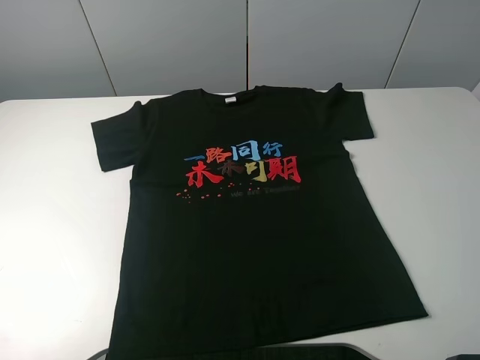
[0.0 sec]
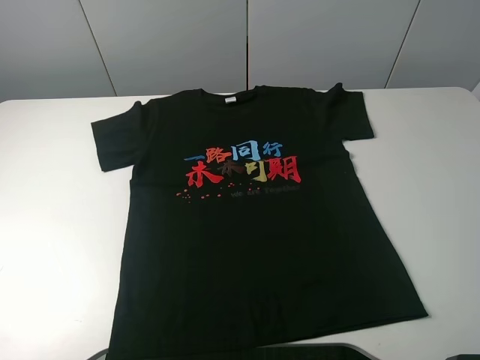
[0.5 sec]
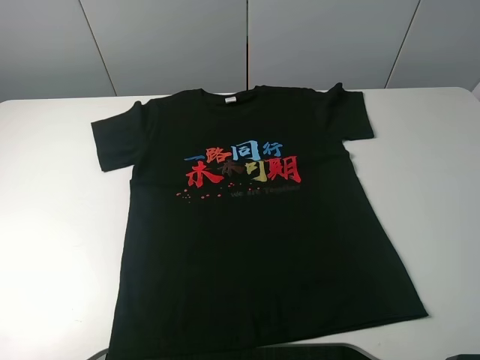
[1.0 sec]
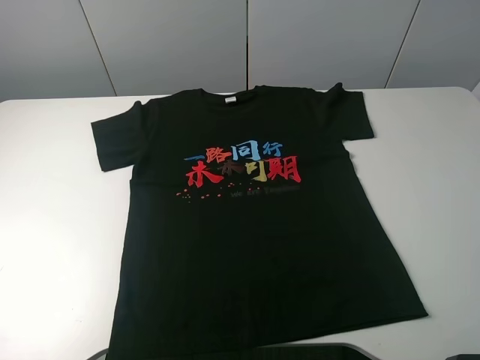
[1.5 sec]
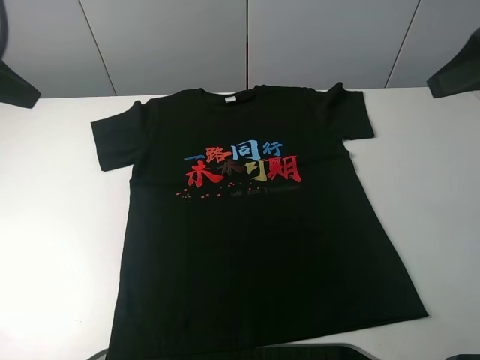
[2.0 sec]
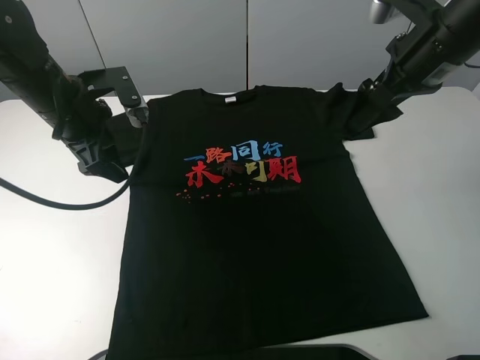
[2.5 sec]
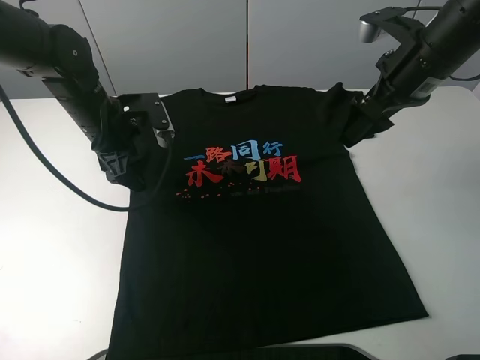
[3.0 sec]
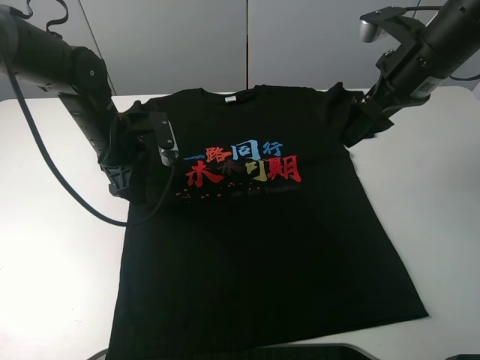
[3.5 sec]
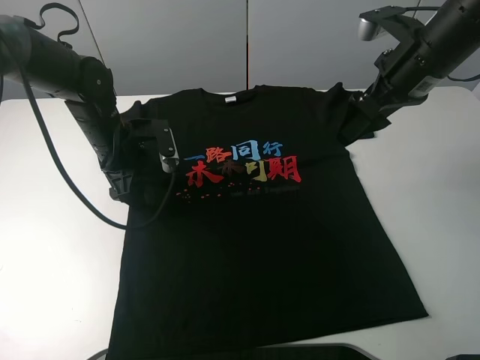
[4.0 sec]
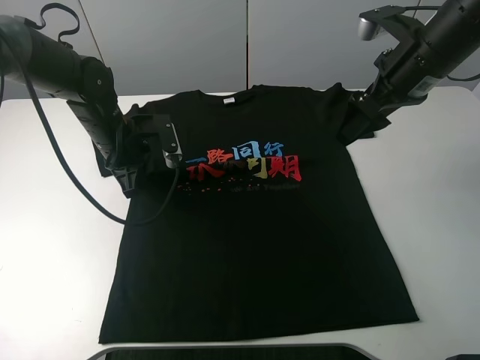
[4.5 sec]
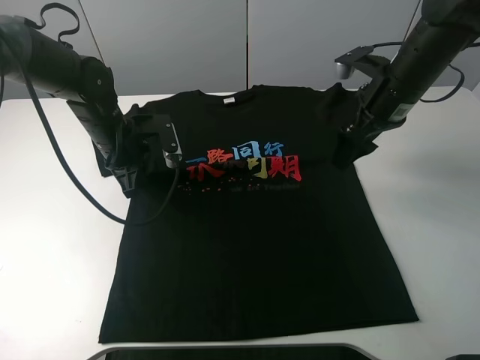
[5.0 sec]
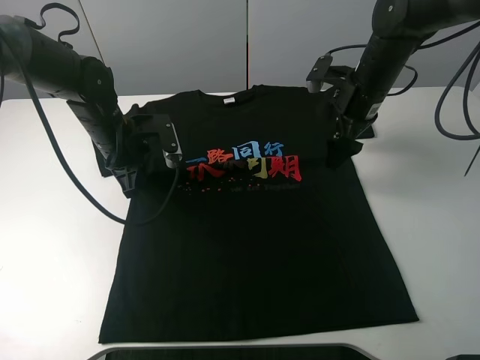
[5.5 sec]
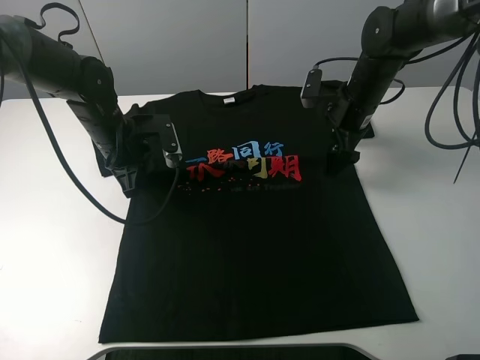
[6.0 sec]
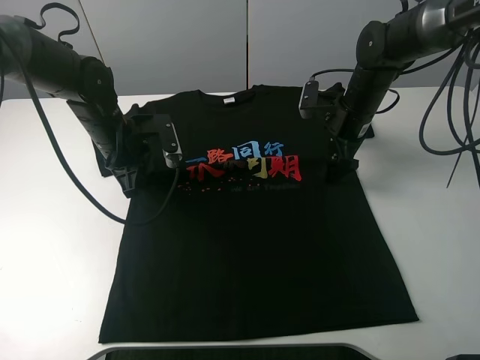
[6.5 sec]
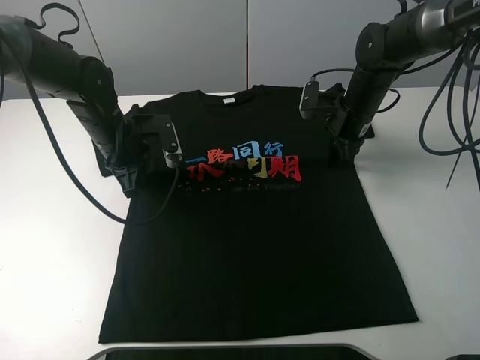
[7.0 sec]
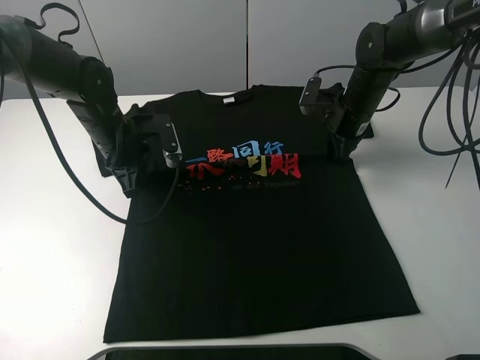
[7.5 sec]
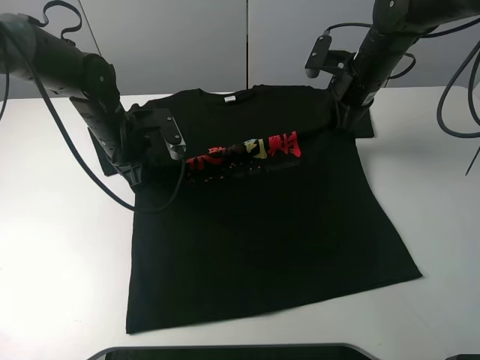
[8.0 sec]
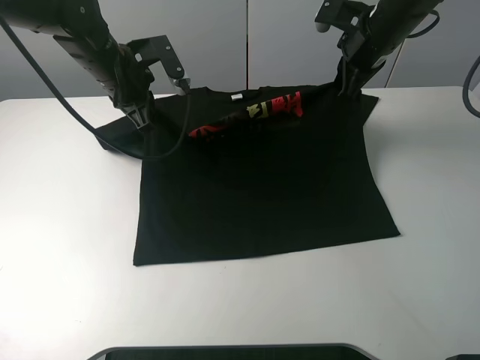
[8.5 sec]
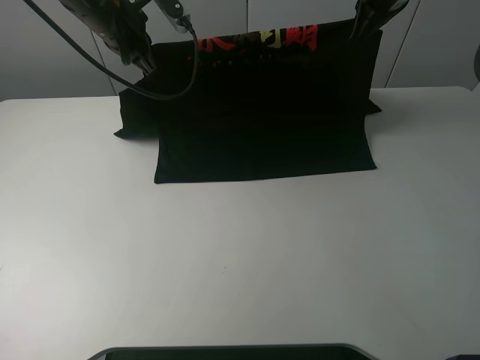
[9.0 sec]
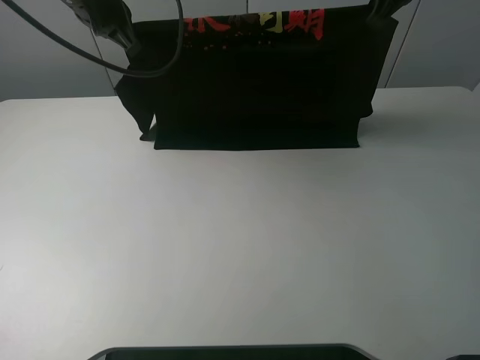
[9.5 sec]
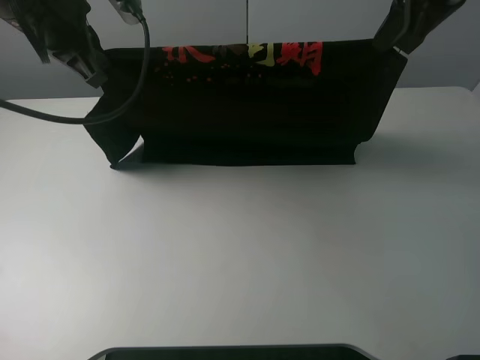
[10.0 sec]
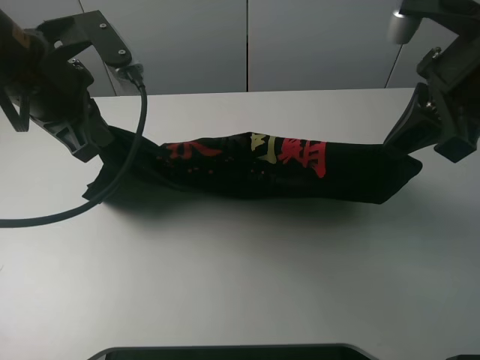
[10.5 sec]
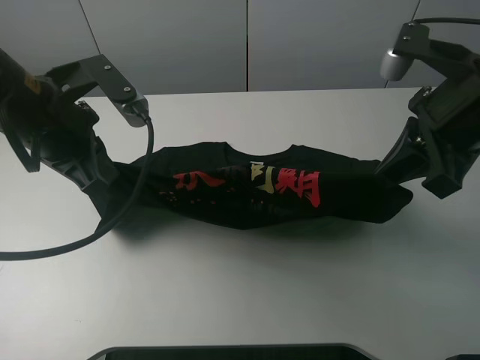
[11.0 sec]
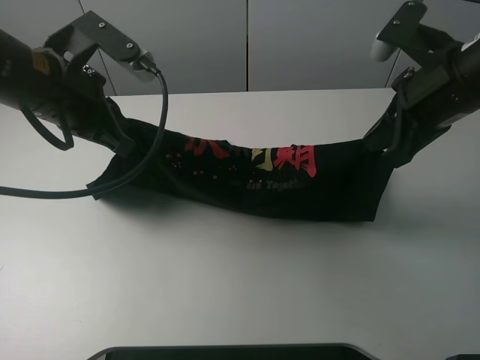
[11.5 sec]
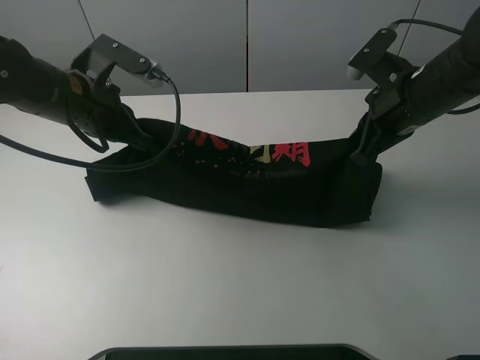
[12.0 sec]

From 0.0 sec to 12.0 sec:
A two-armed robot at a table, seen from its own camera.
Task of the whole recording: fold the clothes on the table.
Step, from 0.0 sec to 7.0 sec: Lift the black T-shirt with the left gripper.
From 0.0 sec to 2.0 sec: Both grippers move forward, roughly 25 cm.
From 2.0 sec to 4.0 sec: The right gripper is displaced downward, forward and to the left by about 15 cm. Meanwhile the left gripper moves downward and to the right, some 25 cm.
From 4.0 sec to 6.0 sec: The left gripper closes up. Meanwhile the right gripper moves downward and forward, approximately 15 cm.
From 6.0 sec to 8.0 sec: The right gripper changes place by approximately 5 cm, and closes up.
From 8.0 sec to 10.0 sec: The left gripper moves upward, some 20 cm. The right gripper shifts approximately 20 cm upward and backward.
From 10.0 sec to 12.0 sec: The two grippers go about 10 cm downward.

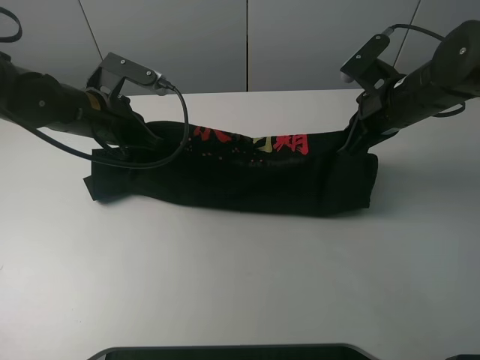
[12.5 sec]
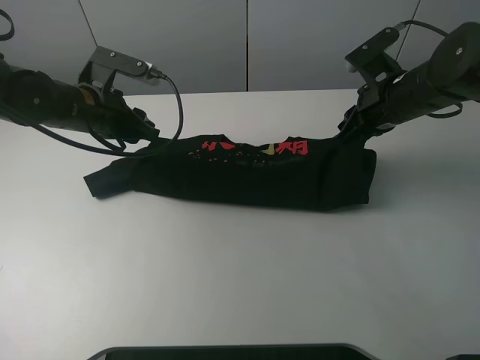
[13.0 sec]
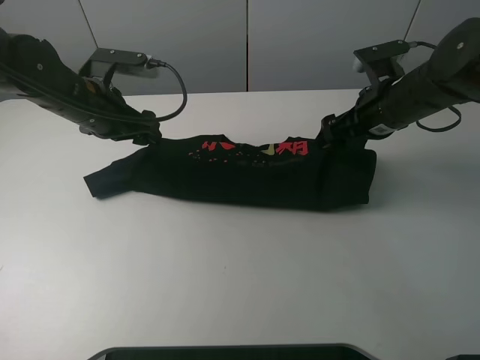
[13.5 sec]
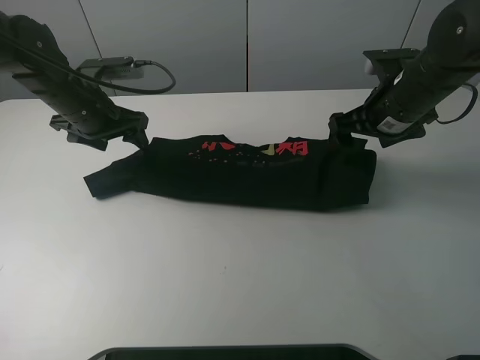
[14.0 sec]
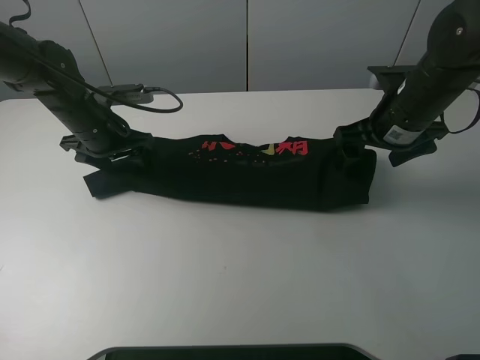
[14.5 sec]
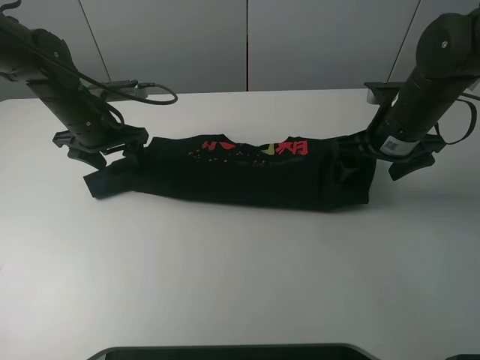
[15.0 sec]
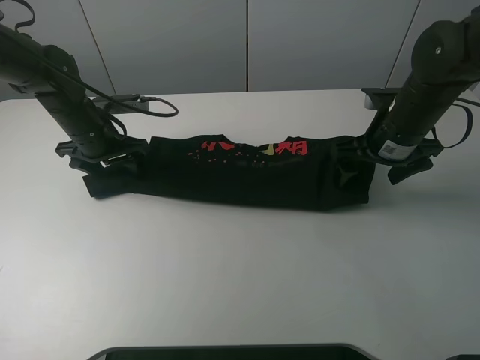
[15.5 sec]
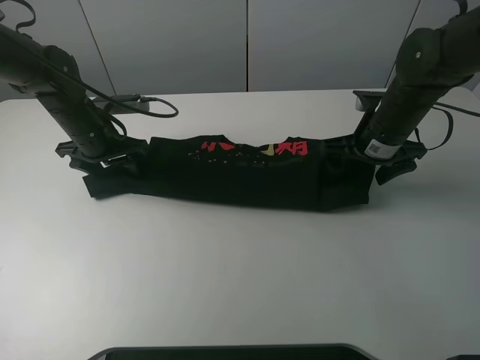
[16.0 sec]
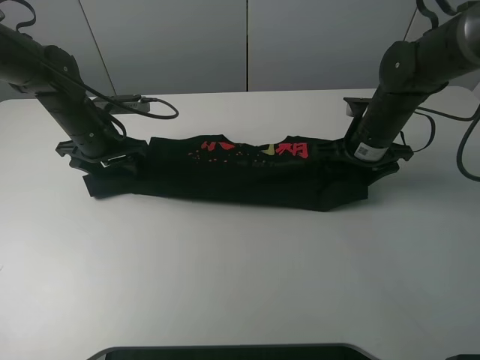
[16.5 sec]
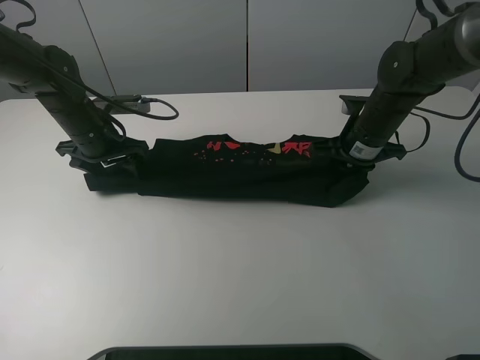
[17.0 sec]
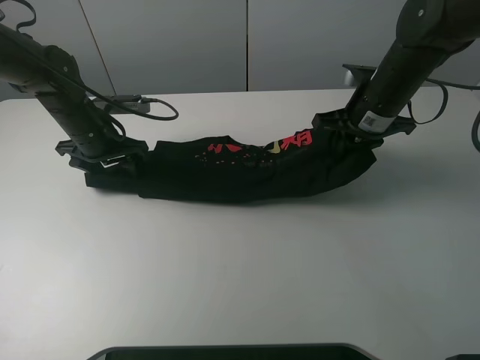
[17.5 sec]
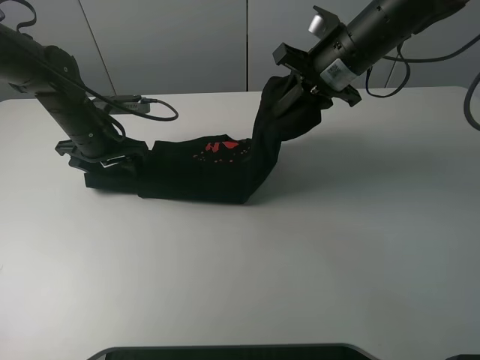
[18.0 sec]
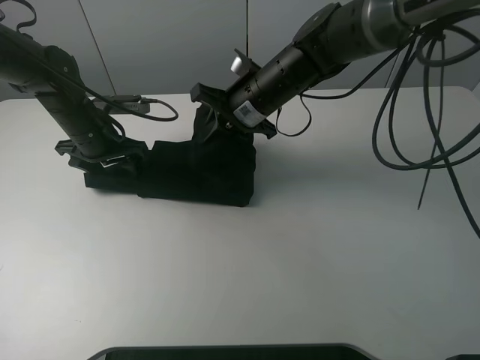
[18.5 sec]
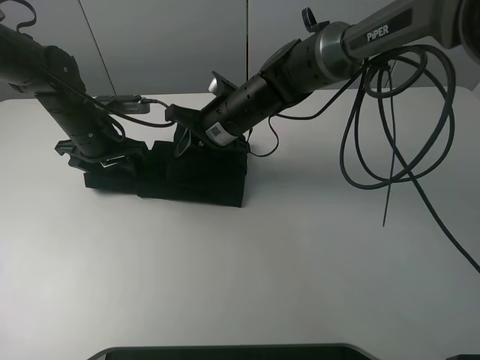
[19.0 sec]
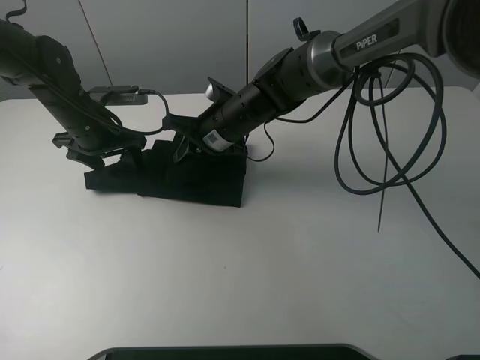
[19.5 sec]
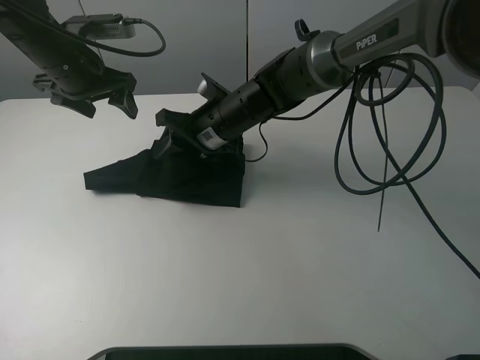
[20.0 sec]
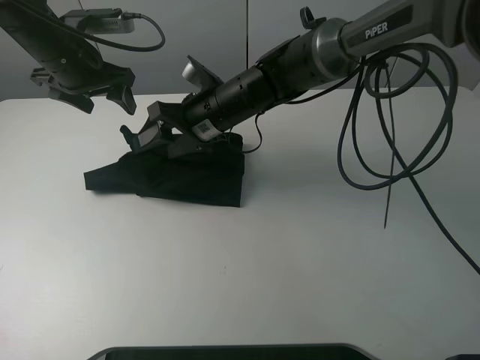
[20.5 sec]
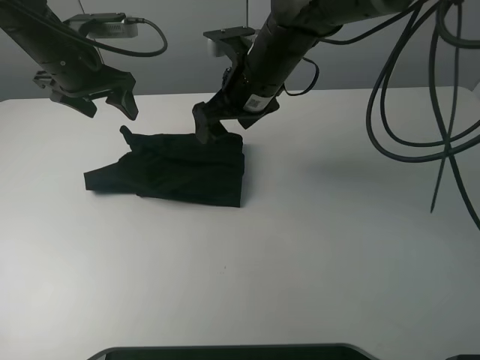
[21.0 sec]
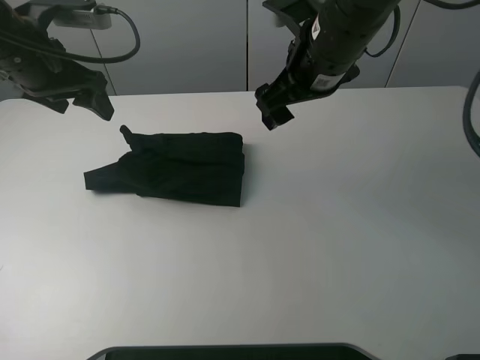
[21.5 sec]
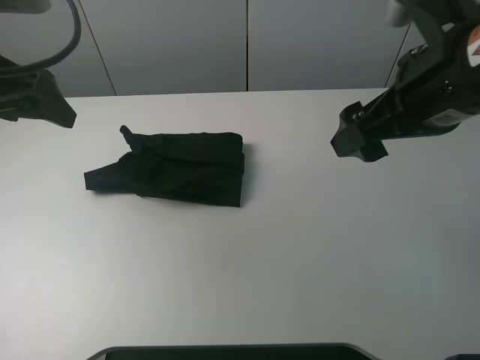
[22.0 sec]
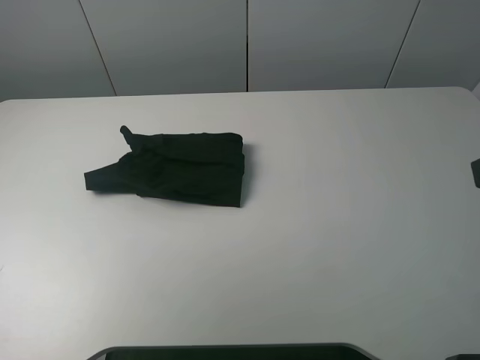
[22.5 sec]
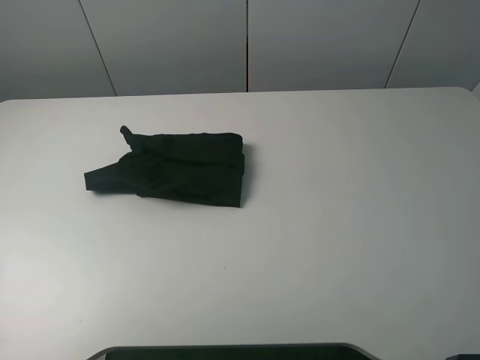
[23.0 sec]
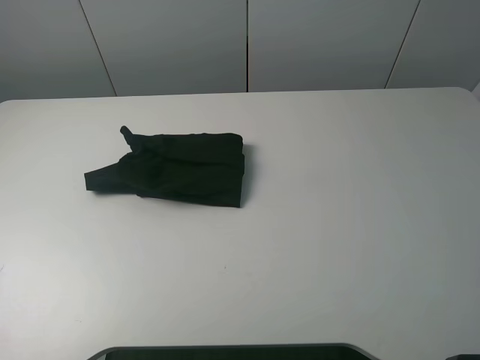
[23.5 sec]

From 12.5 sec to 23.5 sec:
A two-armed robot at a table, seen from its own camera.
Task of the whole recording: fold the clothes on the table.
Step, from 13.5 sec to 16.5 sec: Grasp the black T-shirt with the right gripper.
Step, from 17.0 sec to 20.0 sec: Fold the black T-shirt from right to left with right gripper.
From 12.5 sec to 14.5 sec: The right gripper opens up, while the left gripper changes place by about 5 cm, and opens its fingers.
From 14.5 sec to 16.0 sec: The right gripper ends up roughly 5 cm from where it was.
From 16.0 sec to 18.0 sec: The right gripper travels upward and to the left by about 10 cm, and closes.
From 18.0 sec to 20.0 sec: The left gripper heads upward, covering approximately 10 cm. Meanwhile the right gripper travels to the left and downward by some 20 cm, and opens its fingers.
From 20.0 sec to 21.5 sec: The right gripper moves upward and to the right, some 20 cm. The left gripper travels backward by approximately 5 cm.
From 21.5 sec to 23.5 sec: The left gripper shifts about 30 cm backward, while the right gripper goes about 35 cm backward and to the right.

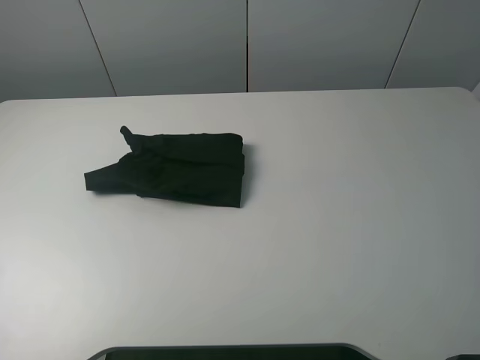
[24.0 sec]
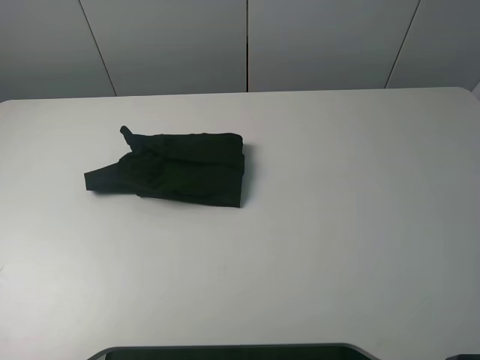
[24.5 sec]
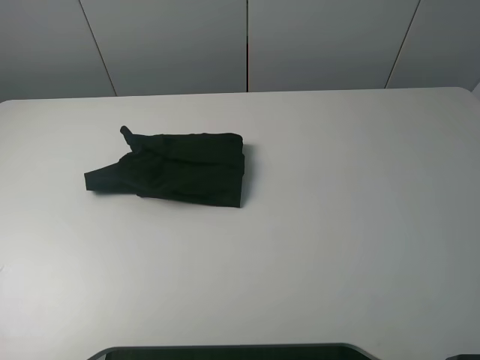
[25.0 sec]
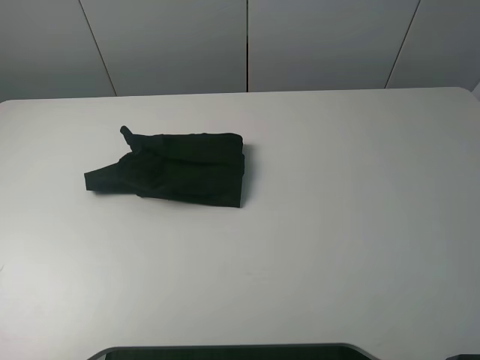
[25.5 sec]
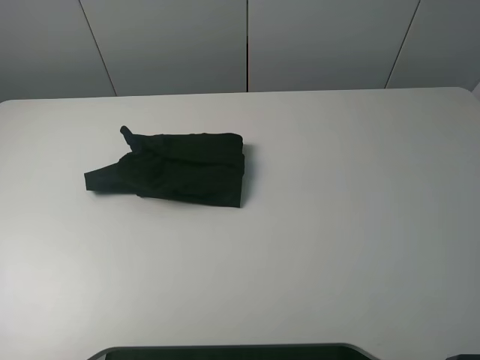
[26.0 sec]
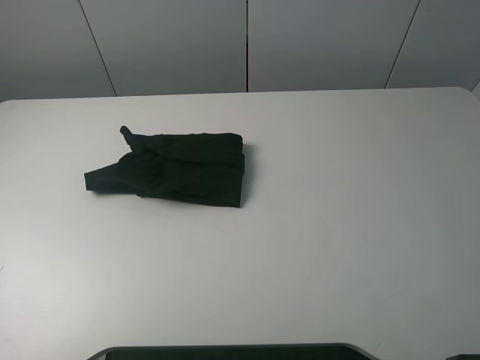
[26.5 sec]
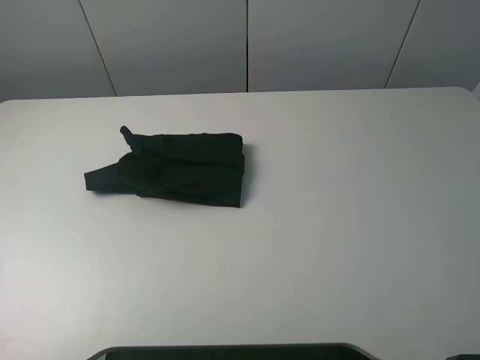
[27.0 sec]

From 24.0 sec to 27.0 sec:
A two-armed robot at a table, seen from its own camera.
Task of the whole recording: fold the clothes on the table.
From 25.5 sec to 27.0 sec: The two grippers keep their place.
